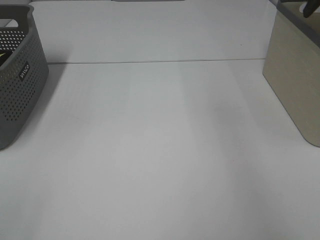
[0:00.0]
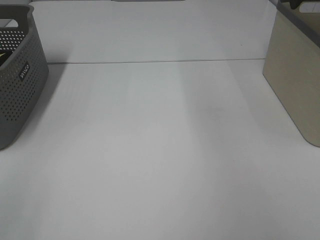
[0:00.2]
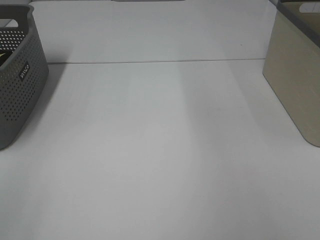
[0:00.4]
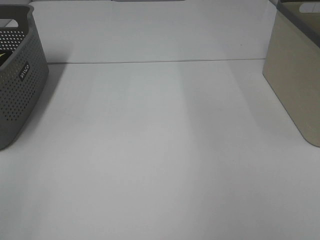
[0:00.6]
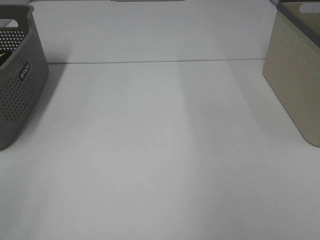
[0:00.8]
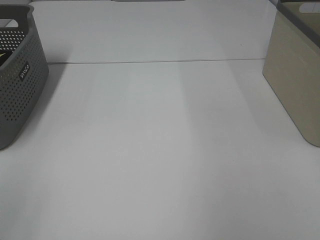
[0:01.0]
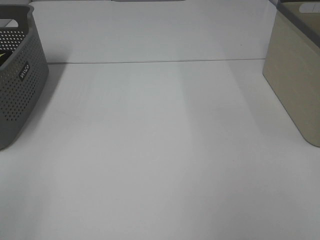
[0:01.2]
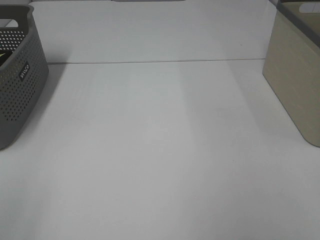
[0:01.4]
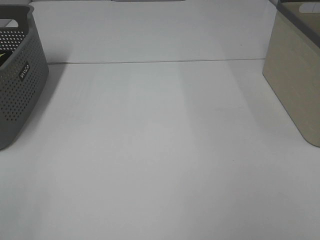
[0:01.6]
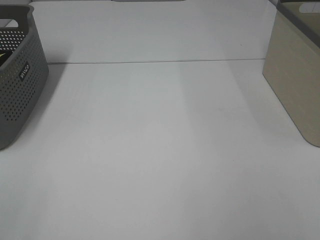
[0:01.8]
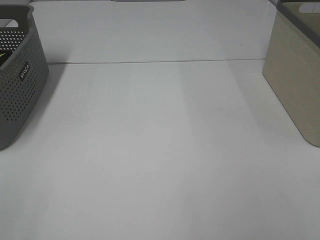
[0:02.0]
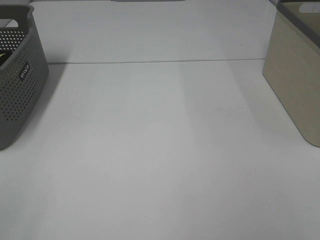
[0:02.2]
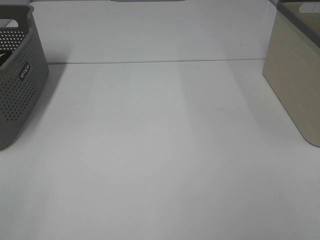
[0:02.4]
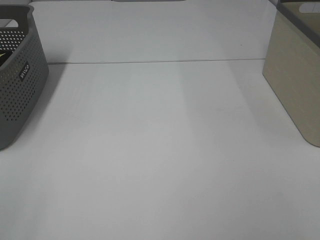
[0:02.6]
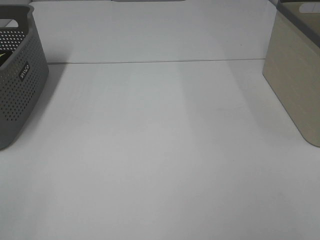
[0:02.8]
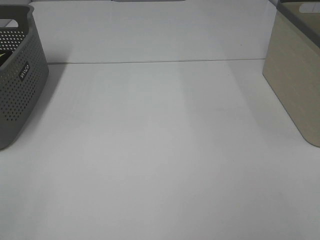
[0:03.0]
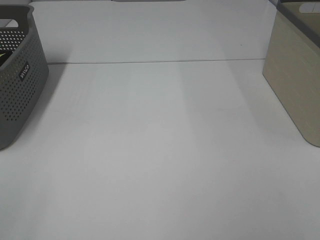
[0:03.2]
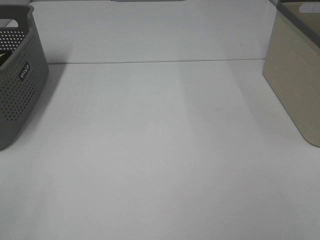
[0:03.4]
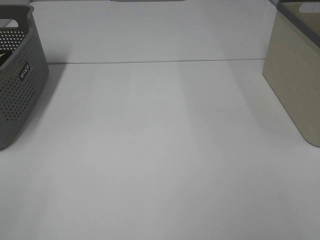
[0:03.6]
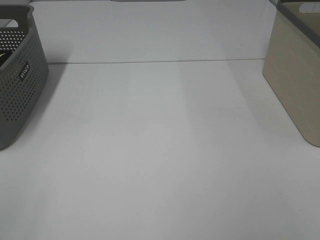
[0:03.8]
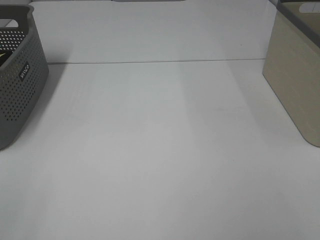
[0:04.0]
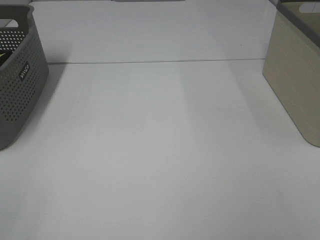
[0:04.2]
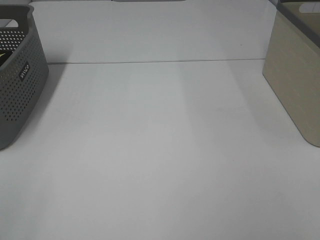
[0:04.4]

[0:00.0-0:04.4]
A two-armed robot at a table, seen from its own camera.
0:03.0 to 0:04.4: Neither gripper changes place.

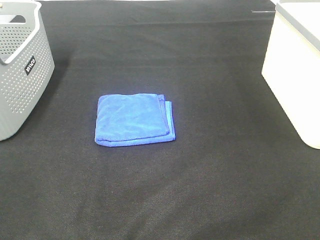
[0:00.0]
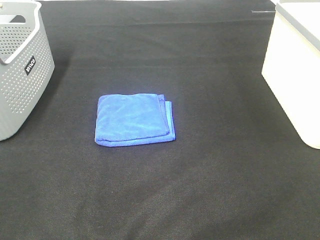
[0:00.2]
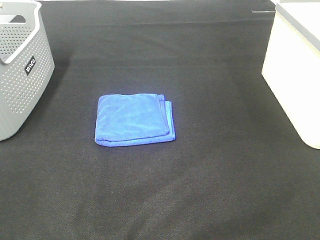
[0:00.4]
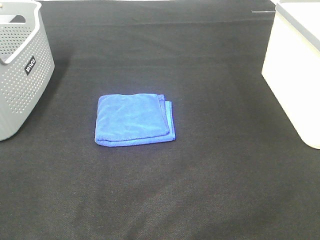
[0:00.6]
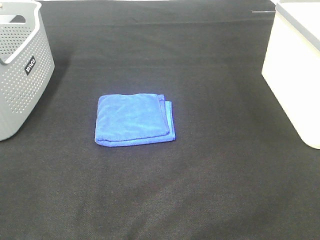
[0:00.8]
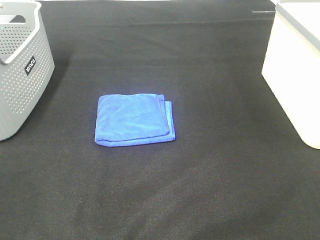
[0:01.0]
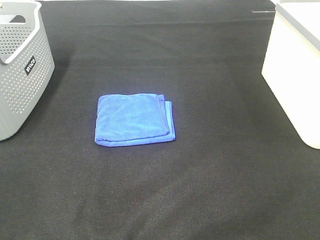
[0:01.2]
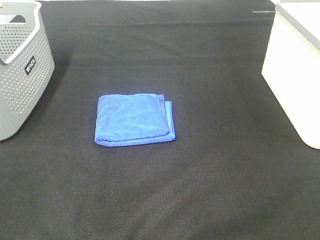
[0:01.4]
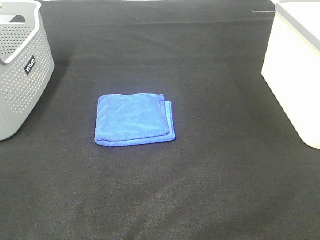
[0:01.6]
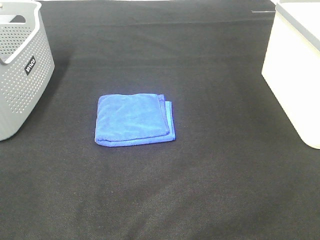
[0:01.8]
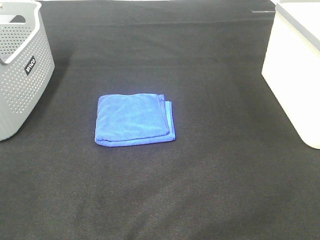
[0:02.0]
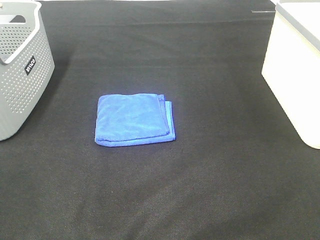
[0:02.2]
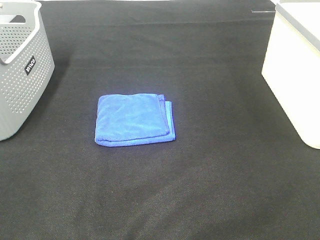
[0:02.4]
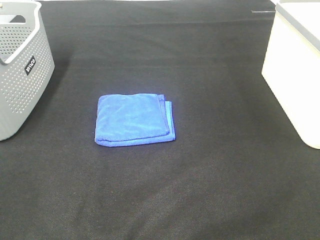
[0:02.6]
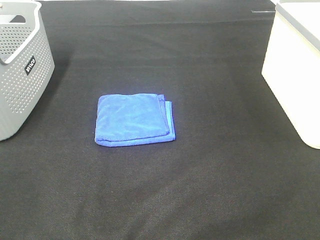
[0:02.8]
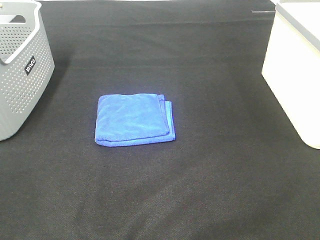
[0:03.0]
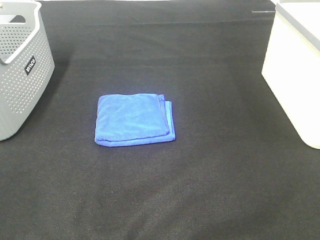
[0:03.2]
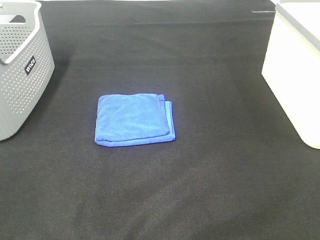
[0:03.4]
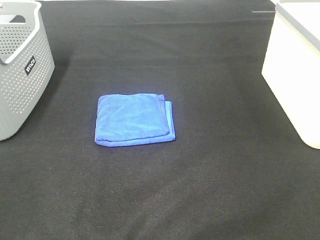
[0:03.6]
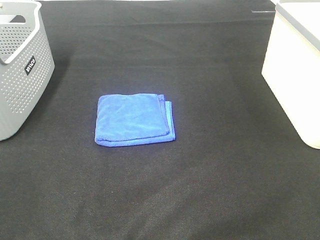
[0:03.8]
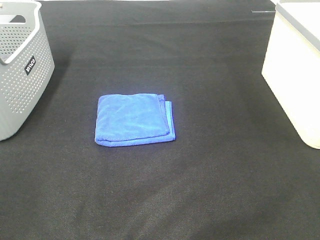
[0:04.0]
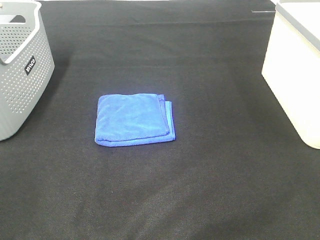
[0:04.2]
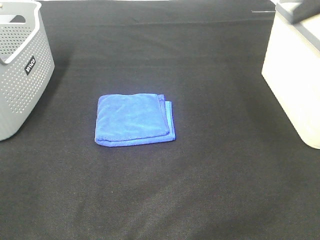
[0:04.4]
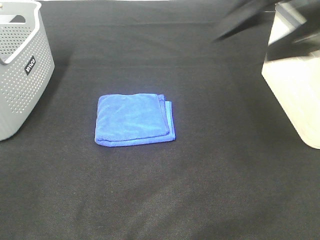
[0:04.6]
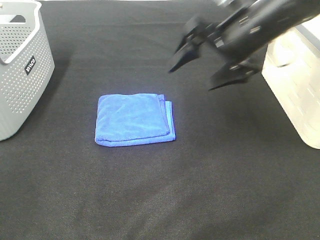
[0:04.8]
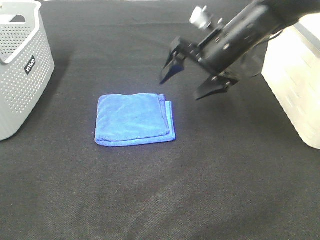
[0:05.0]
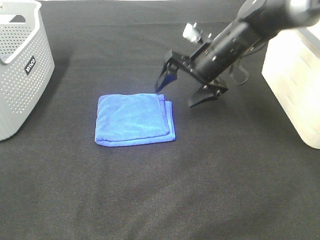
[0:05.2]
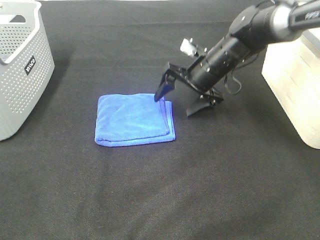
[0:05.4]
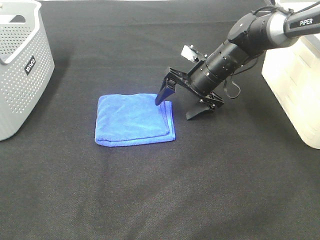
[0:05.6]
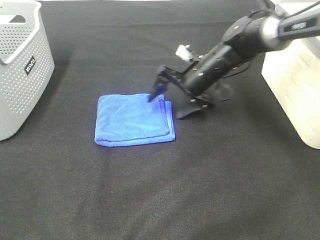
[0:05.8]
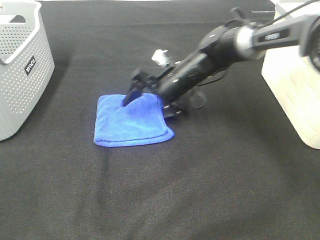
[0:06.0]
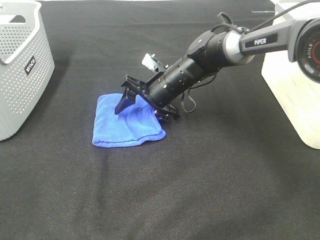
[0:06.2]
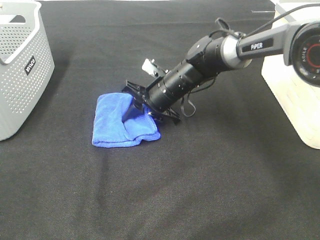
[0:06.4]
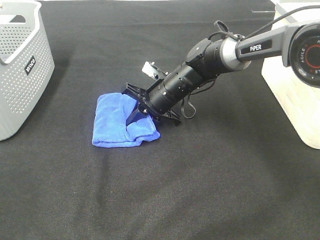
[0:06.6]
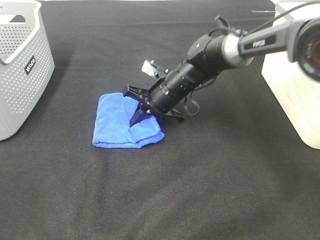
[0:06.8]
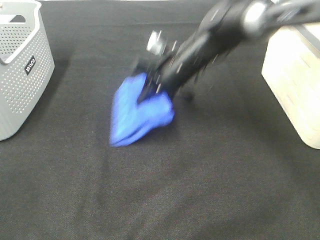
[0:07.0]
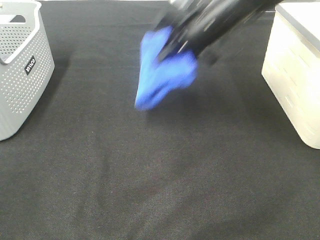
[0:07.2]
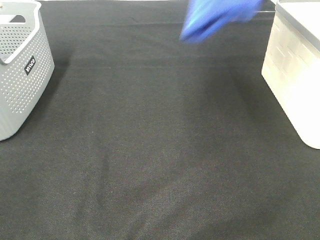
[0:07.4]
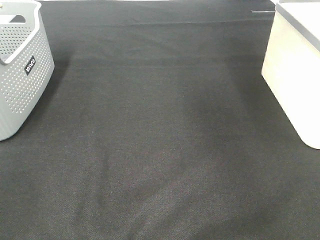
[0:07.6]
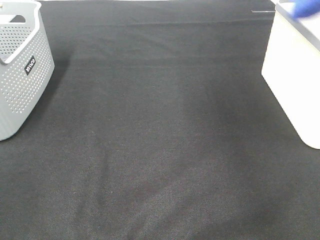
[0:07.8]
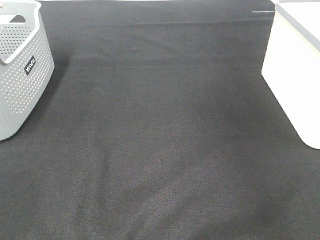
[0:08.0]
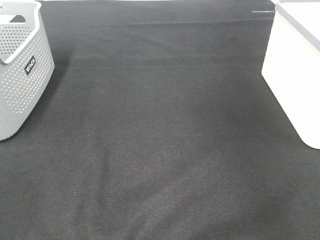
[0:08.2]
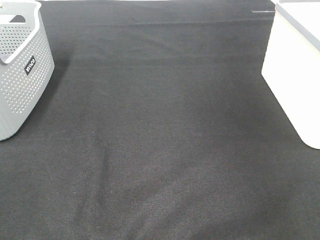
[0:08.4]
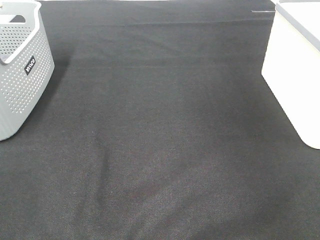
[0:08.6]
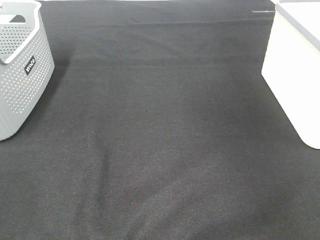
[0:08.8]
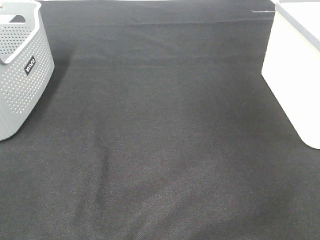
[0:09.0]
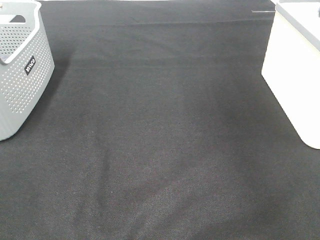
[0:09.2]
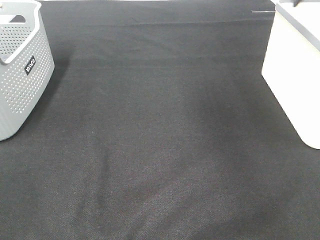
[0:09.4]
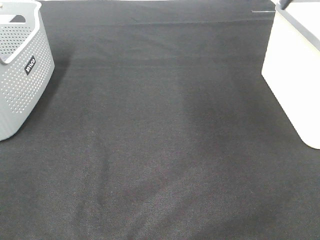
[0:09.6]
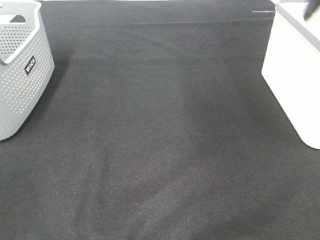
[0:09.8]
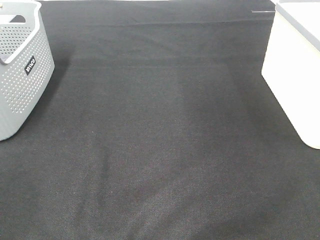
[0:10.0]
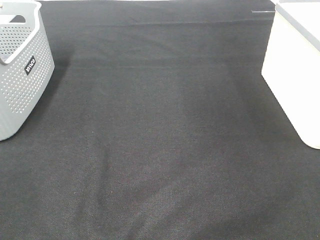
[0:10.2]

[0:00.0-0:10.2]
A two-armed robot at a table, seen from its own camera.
Step, 0:00.0 to 0:06.4: Right hand: grab the folded blue towel.
Step, 0:06.6 to 0:09.0: Right hand: place the blue towel in right basket.
0:00.0 to 0:03.0: Neither gripper changes place.
0:03.0 to 0:04.4: The right gripper heads forward and upward, covering roughly 25 cm.
0:04.4 to 0:05.8: The right gripper goes about 40 cm downward, forward and to the left.
0:05.8 to 0:07.2: The right gripper travels upward by roughly 15 cm, and closes up.
0:07.2 to 0:08.8: The right gripper goes about 30 cm to the right, and opens.

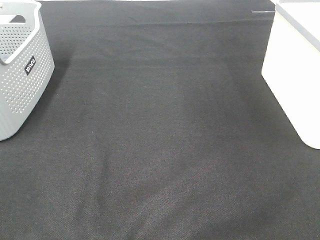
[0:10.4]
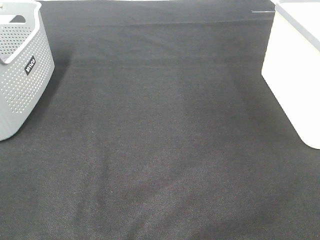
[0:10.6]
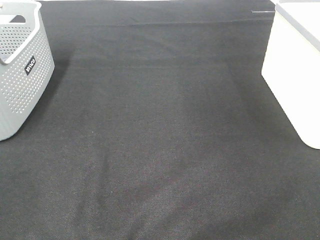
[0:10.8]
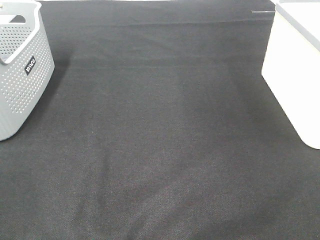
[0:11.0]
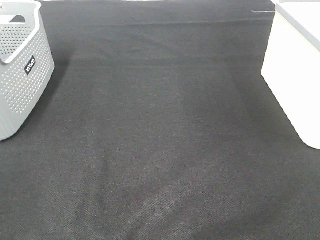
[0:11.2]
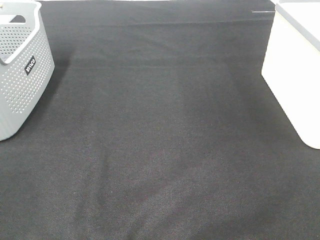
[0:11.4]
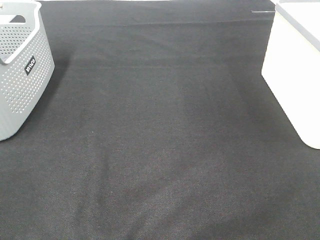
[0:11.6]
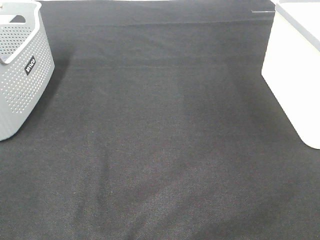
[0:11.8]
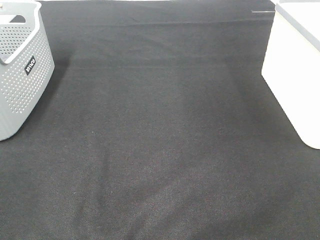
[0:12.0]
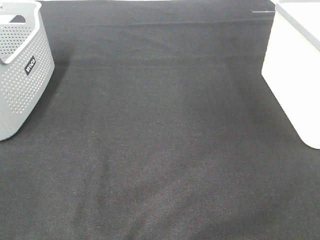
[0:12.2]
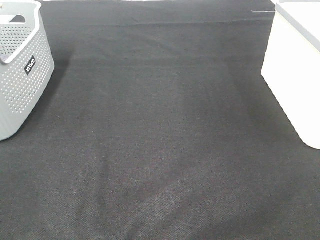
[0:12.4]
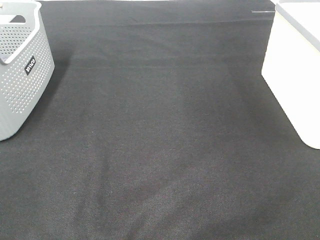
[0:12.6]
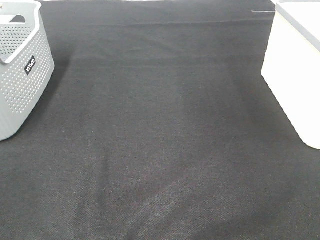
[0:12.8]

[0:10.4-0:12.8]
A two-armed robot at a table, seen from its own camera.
0:11.6 to 0:12.8: Both grippers stay about where they are.

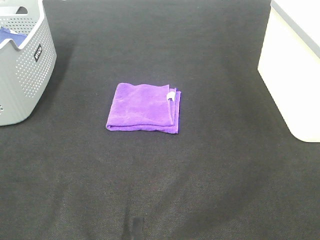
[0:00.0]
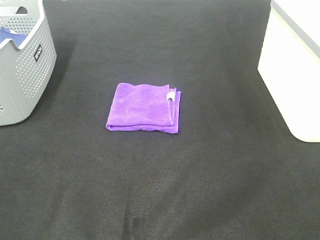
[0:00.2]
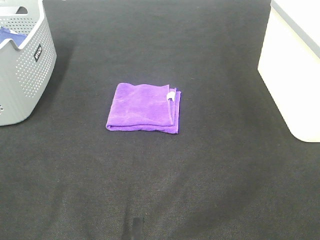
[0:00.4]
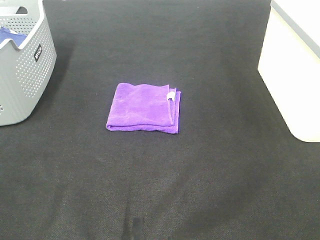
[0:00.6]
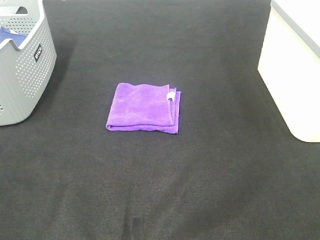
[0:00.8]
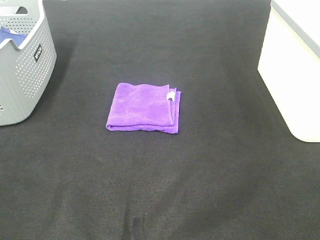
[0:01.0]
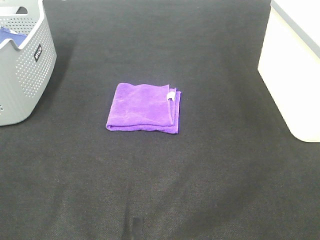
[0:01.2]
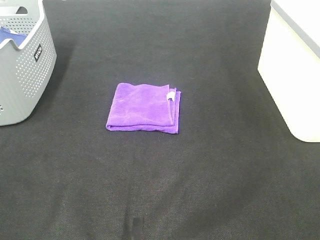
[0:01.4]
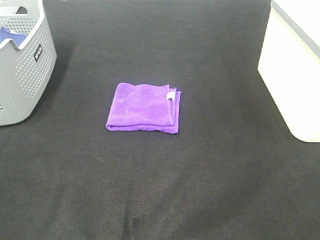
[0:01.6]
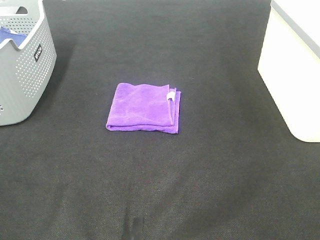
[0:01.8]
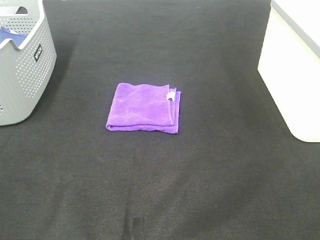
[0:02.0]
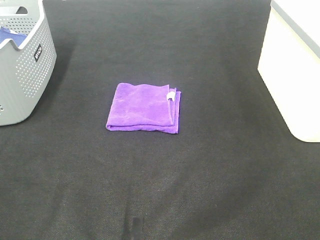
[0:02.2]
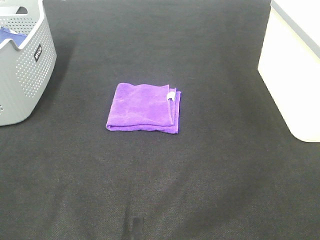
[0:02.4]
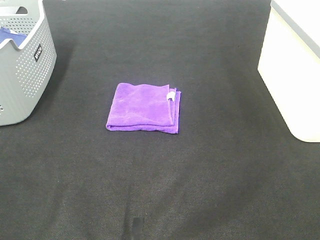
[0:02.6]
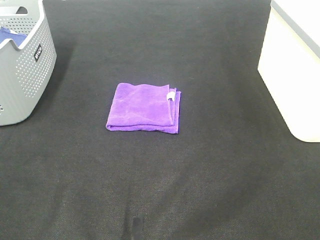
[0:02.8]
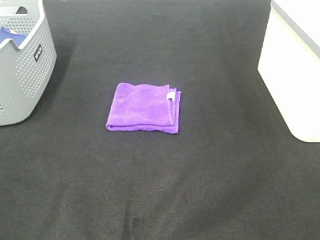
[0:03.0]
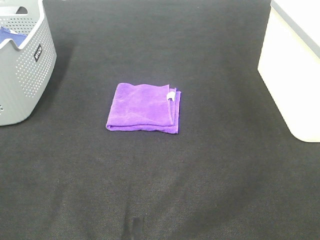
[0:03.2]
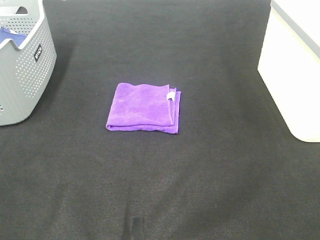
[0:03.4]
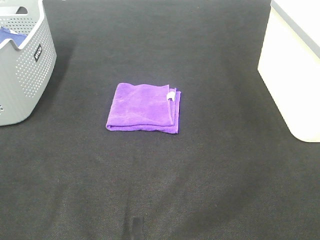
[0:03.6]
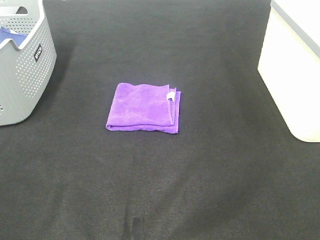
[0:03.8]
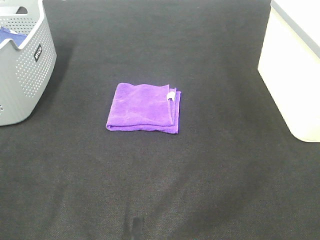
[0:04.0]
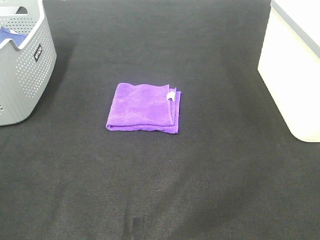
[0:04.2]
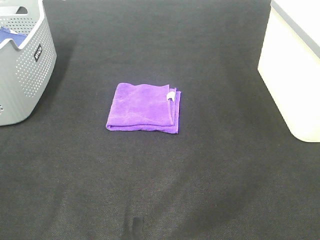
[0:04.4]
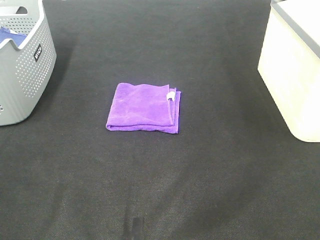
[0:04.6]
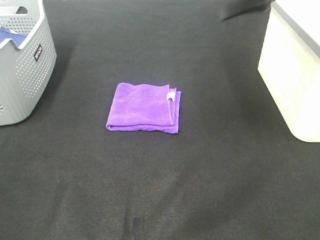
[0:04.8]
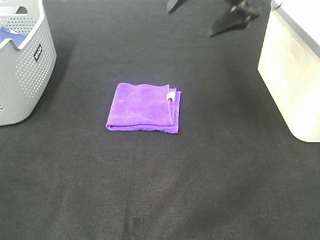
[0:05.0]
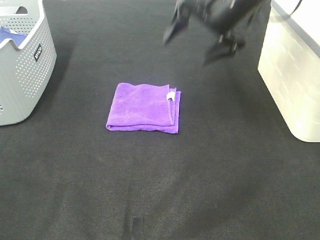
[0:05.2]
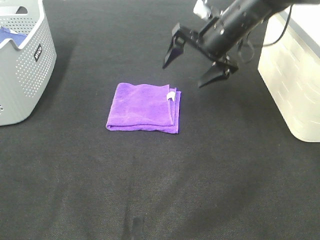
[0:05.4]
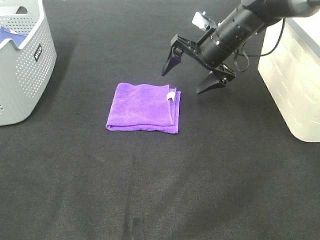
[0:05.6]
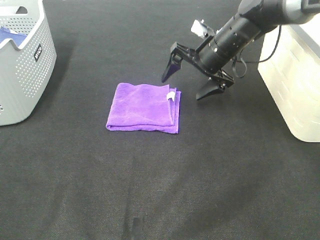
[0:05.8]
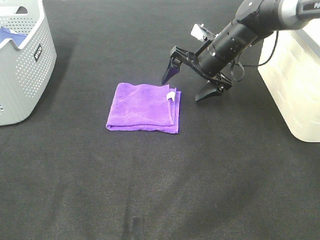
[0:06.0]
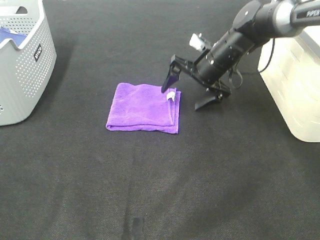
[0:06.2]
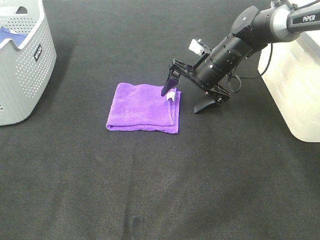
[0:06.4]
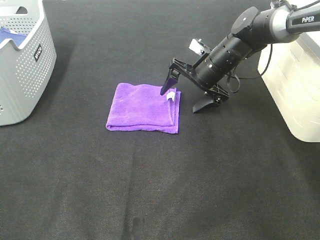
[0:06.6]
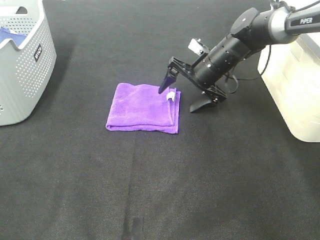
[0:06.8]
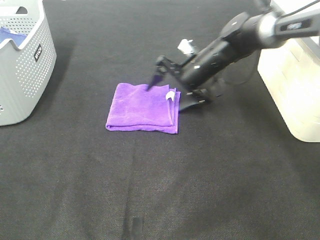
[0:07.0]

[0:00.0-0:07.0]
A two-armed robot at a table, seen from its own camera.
0:00.0 to 0:02.8: Both grippers stay about where they are.
0:04.2 to 0:05.6: The right gripper goes roughly 40 cm downward, forward and to the left.
0:05.6 to 0:07.0: The right gripper shifts roughly 10 cm downward.
